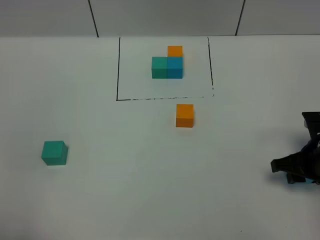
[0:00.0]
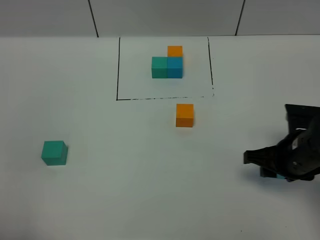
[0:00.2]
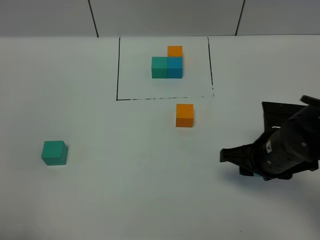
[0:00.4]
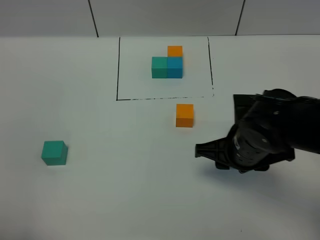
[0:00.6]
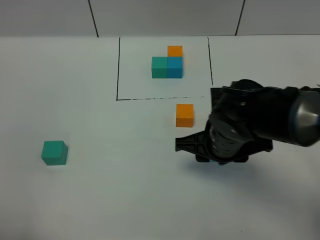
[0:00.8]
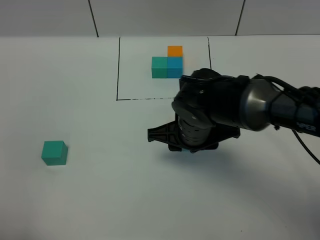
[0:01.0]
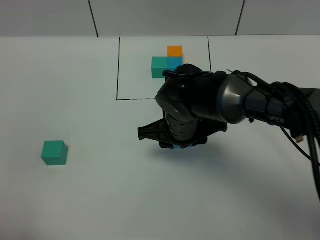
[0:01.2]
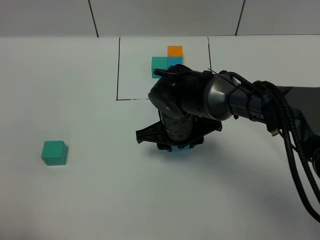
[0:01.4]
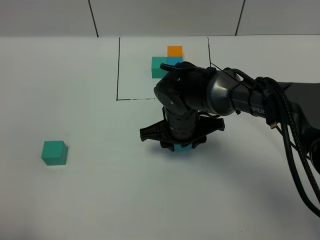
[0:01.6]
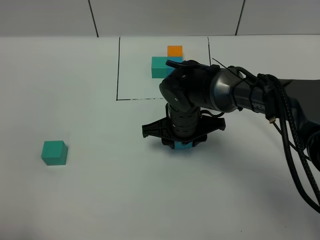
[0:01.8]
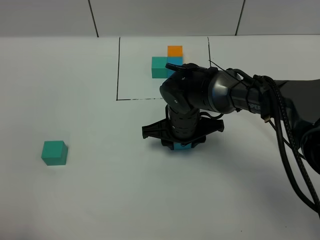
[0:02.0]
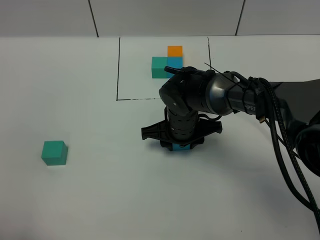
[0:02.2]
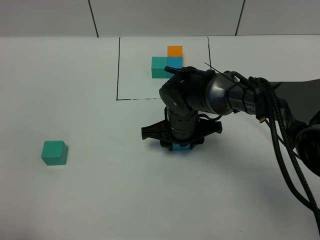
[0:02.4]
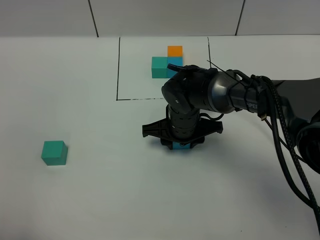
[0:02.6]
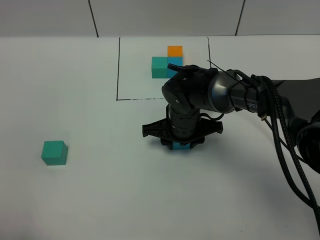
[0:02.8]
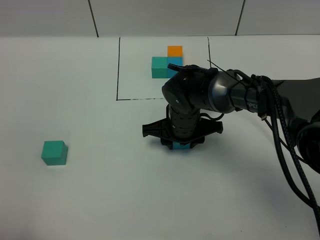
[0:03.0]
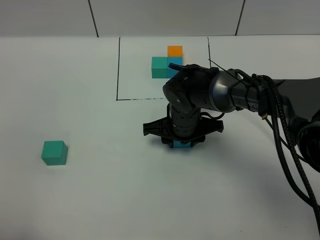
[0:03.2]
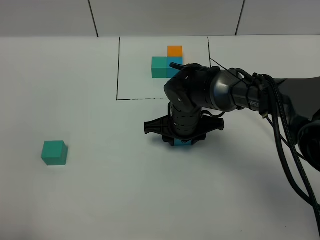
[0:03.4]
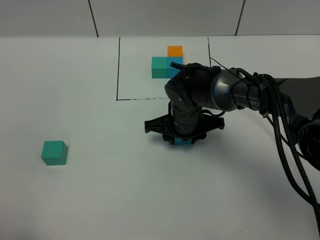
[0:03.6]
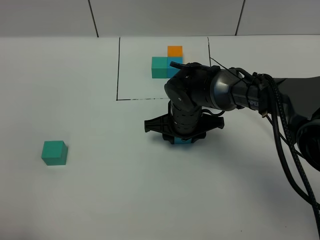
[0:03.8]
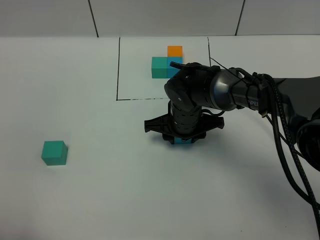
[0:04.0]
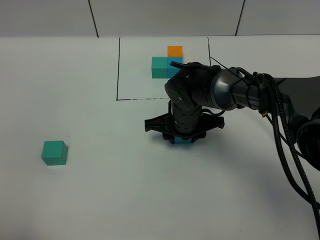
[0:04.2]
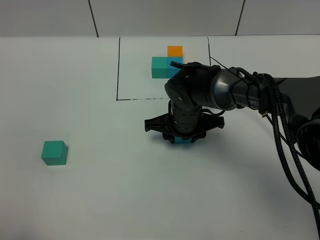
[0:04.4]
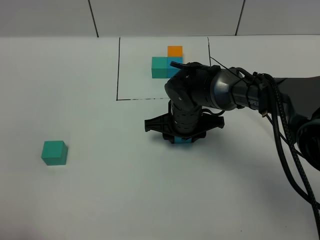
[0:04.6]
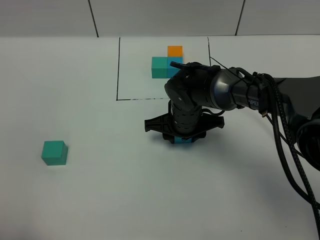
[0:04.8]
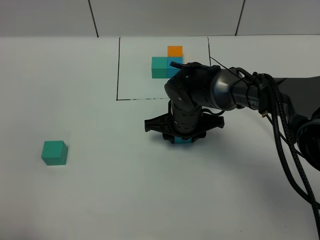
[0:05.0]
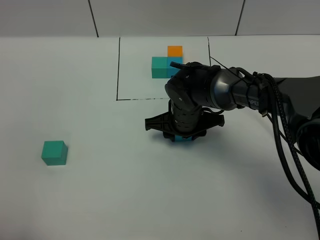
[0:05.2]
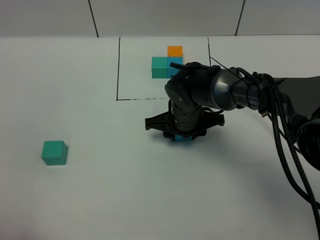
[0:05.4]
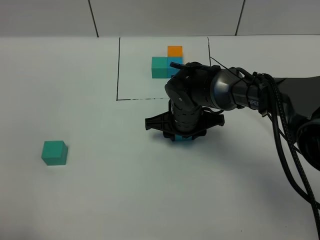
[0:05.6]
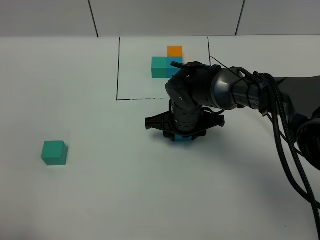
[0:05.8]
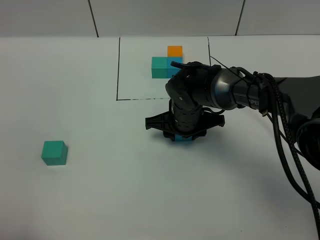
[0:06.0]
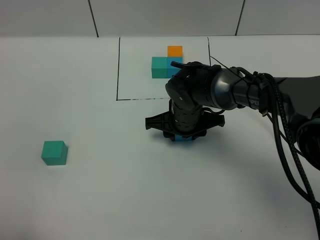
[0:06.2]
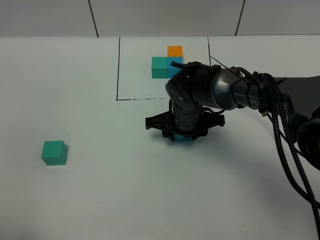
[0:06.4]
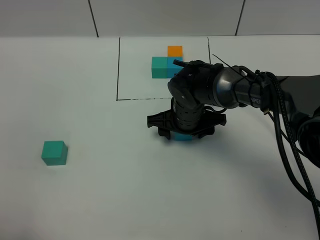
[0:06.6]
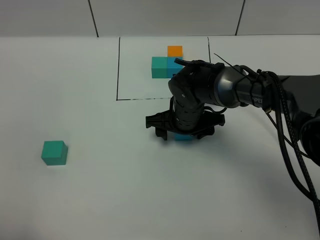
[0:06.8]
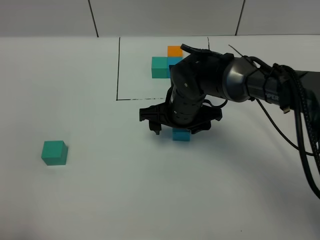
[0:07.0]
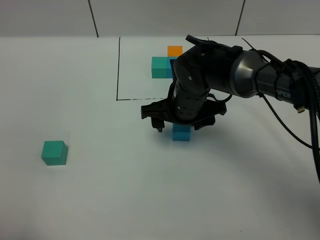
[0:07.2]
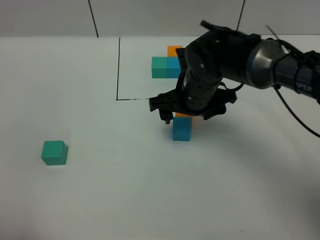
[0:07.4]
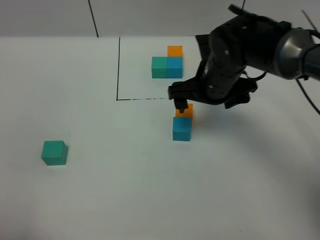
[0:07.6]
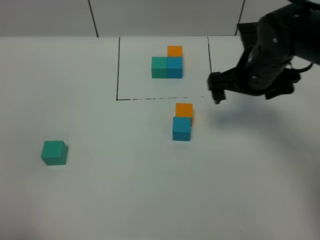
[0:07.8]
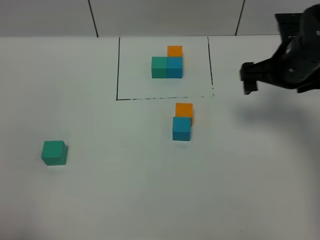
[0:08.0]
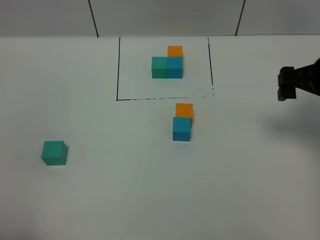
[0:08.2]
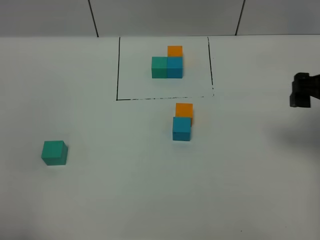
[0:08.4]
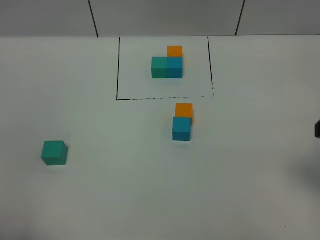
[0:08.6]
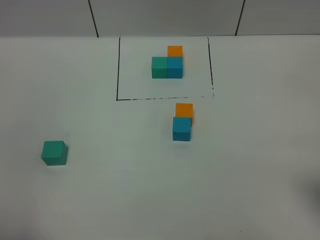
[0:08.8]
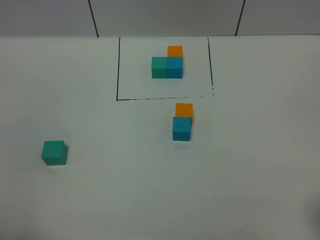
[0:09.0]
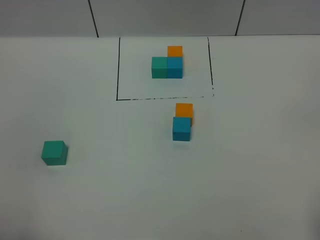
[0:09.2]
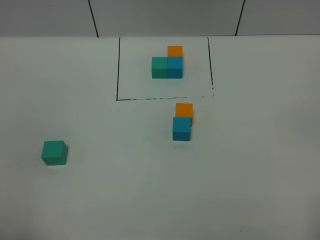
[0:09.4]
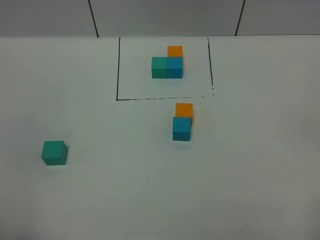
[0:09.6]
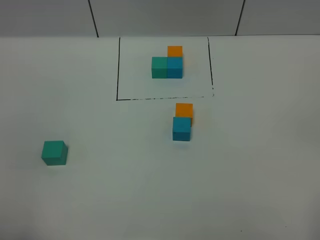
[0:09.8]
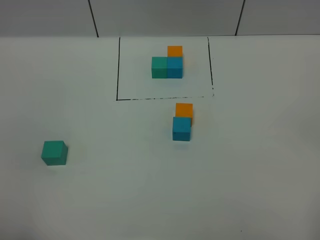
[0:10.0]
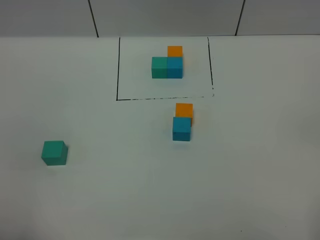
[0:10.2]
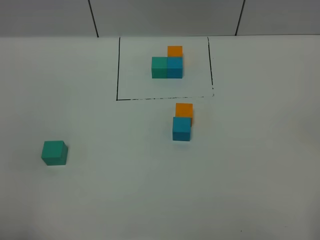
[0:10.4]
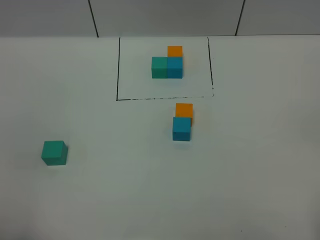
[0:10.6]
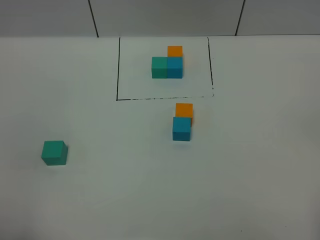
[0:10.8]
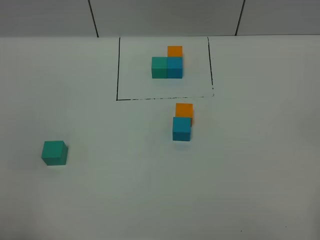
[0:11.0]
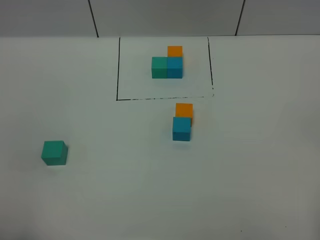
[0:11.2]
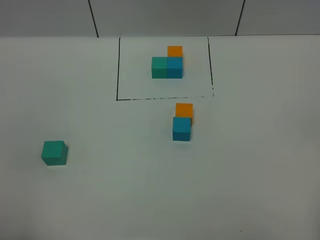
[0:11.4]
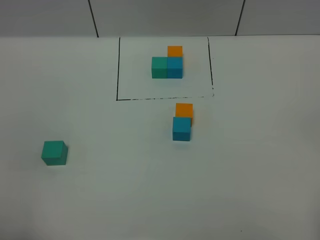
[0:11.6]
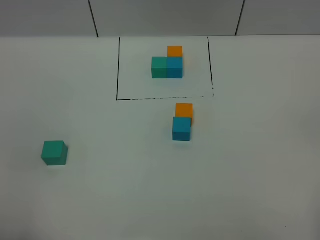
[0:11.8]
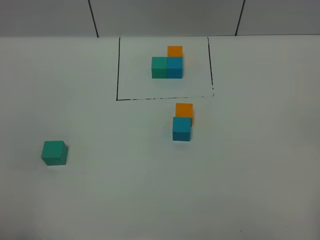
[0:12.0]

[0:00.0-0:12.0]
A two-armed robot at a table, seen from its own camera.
Task of the whole recording: According to the building block template in front, assemble the scattered blocks together.
Step, 0:00.0 to 0:06.8: Put the blue build block on the behind of the orange build block.
0:00.0 to 0:01.6: The right gripper travels to the left by roughly 25 cm.
0:01.6 to 0:03.0: The grippers stay close to where they were, moving slightly.
0:03.0 to 0:06.0: The two grippers keep their place.
0:06.0 to 0:07.6: The right gripper is displaced upward and to the right by approximately 10 cm, and opens its fingers.
0:07.6 to 0:09.0: The right gripper shifts about 35 cm backward and to the right.

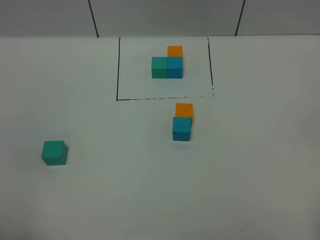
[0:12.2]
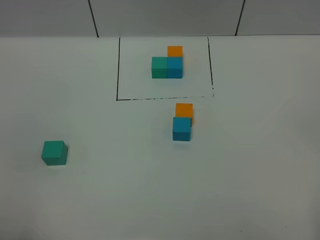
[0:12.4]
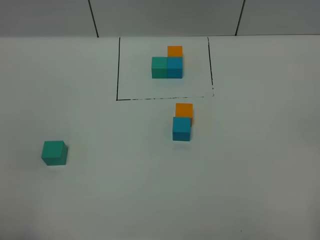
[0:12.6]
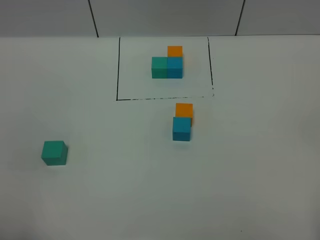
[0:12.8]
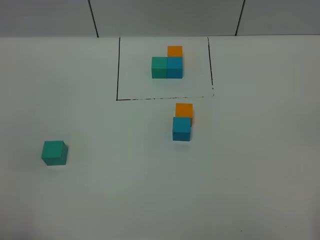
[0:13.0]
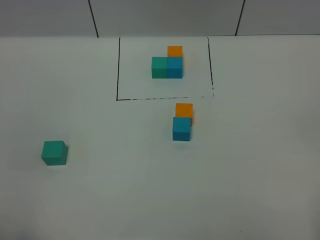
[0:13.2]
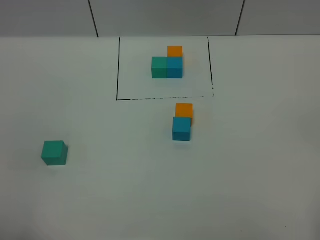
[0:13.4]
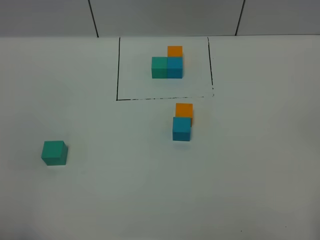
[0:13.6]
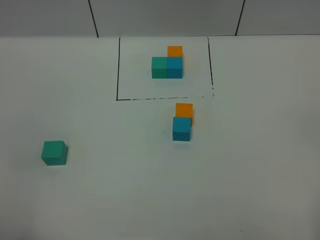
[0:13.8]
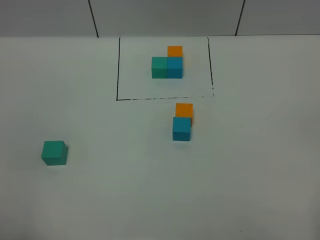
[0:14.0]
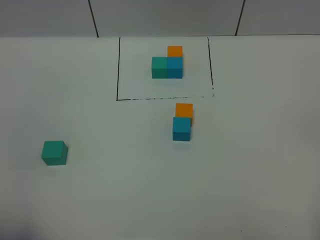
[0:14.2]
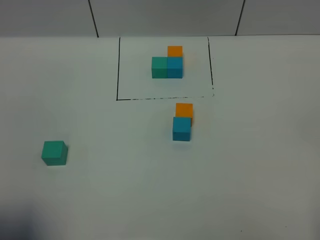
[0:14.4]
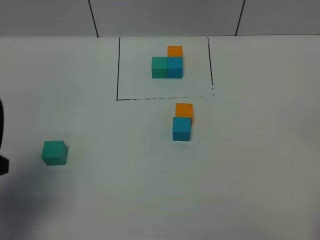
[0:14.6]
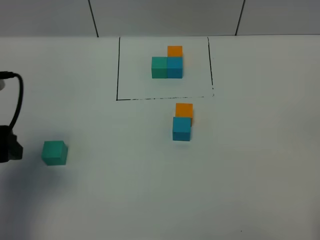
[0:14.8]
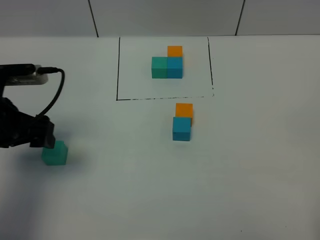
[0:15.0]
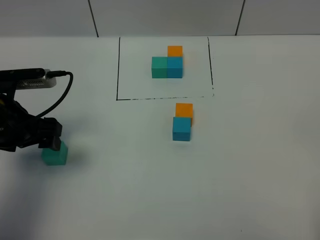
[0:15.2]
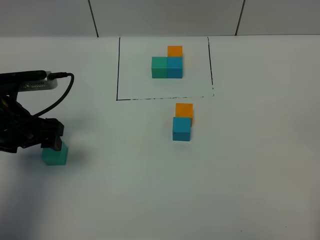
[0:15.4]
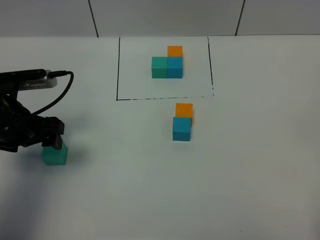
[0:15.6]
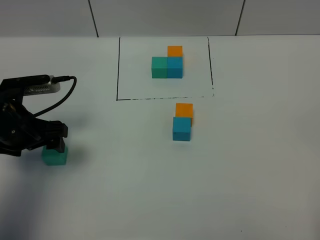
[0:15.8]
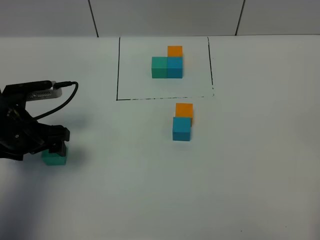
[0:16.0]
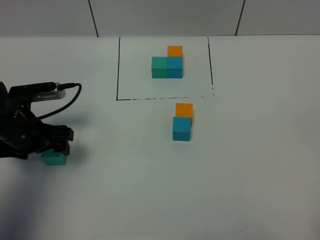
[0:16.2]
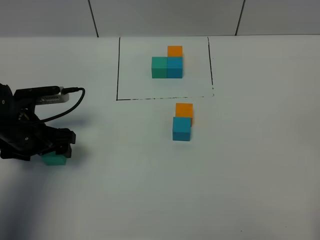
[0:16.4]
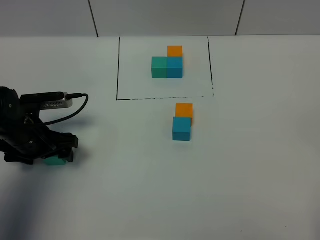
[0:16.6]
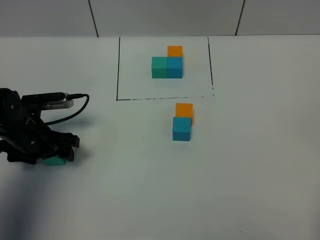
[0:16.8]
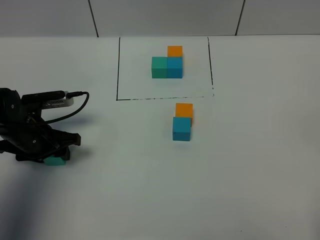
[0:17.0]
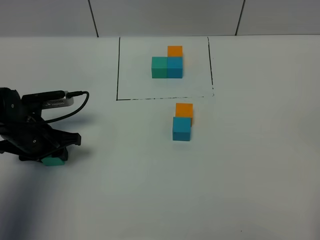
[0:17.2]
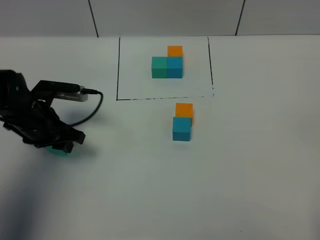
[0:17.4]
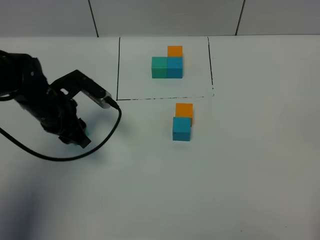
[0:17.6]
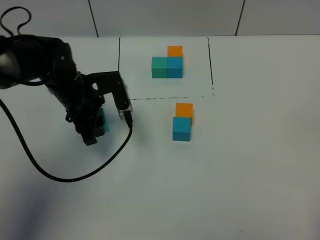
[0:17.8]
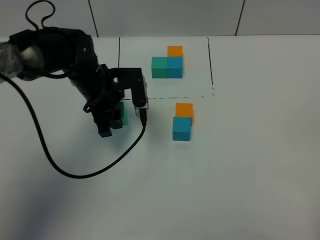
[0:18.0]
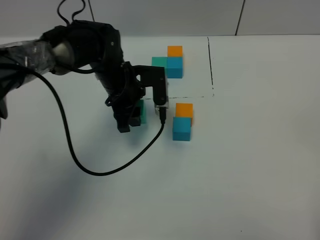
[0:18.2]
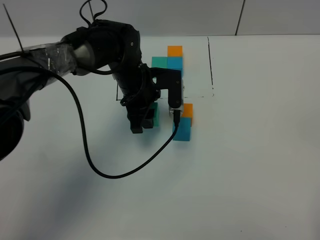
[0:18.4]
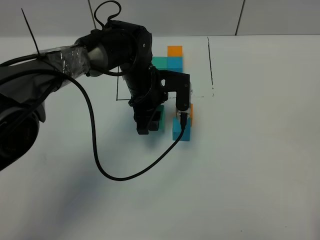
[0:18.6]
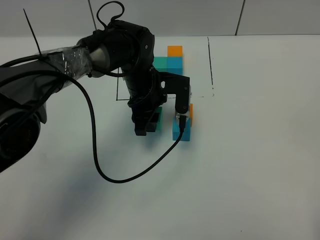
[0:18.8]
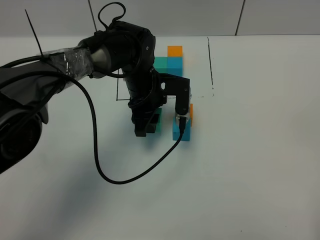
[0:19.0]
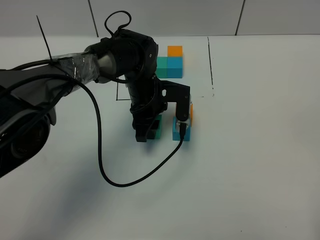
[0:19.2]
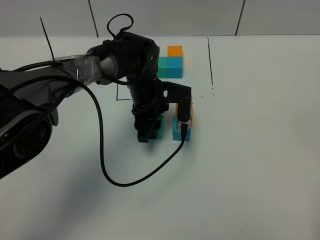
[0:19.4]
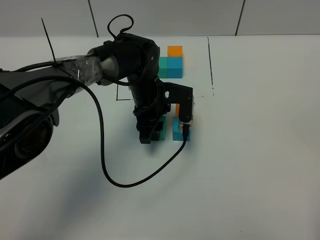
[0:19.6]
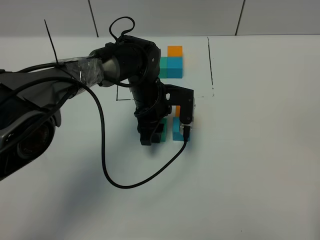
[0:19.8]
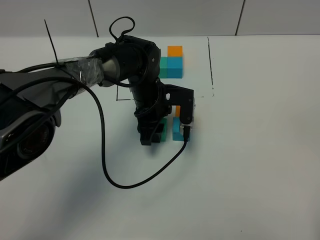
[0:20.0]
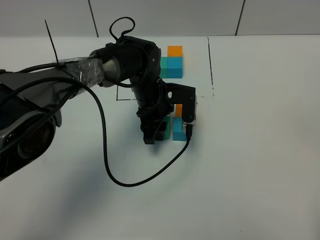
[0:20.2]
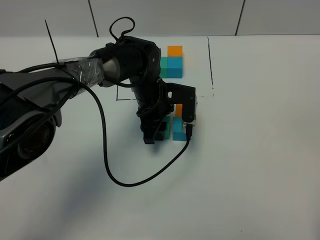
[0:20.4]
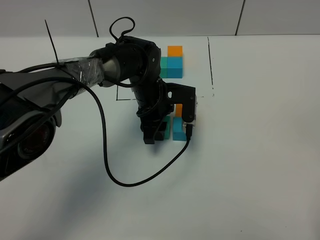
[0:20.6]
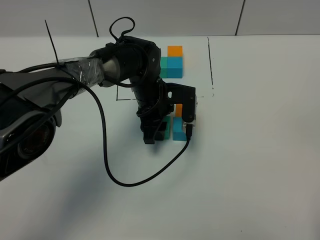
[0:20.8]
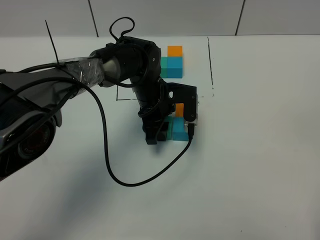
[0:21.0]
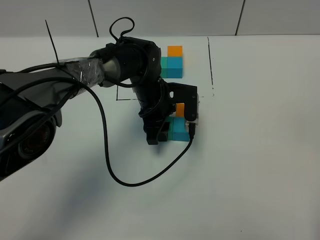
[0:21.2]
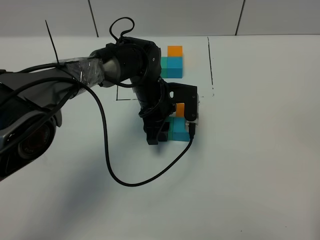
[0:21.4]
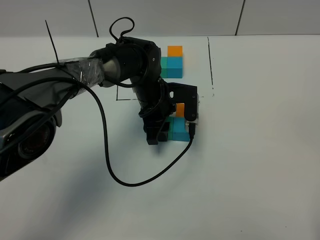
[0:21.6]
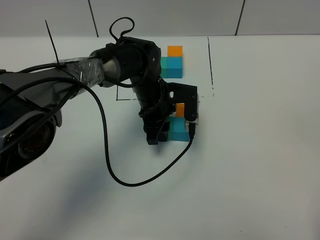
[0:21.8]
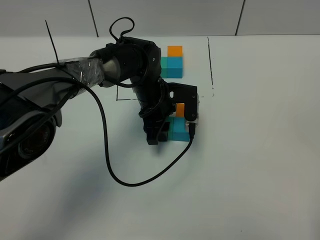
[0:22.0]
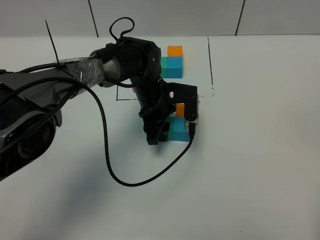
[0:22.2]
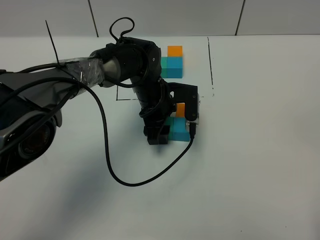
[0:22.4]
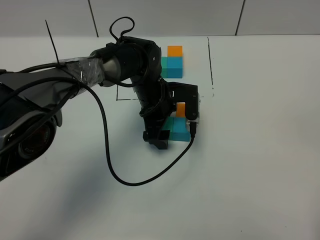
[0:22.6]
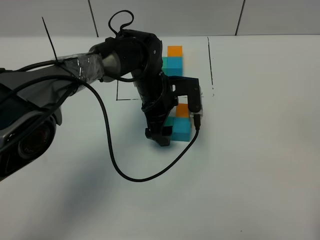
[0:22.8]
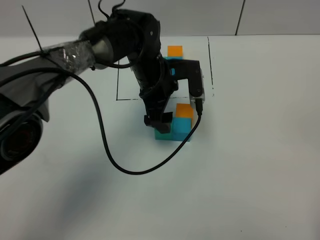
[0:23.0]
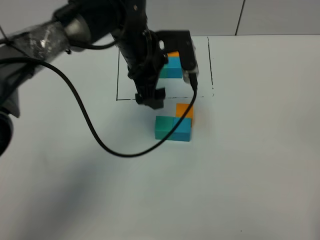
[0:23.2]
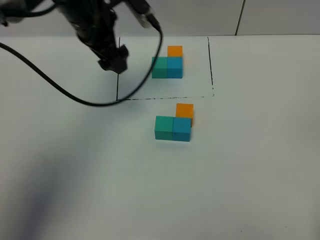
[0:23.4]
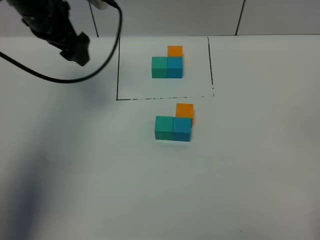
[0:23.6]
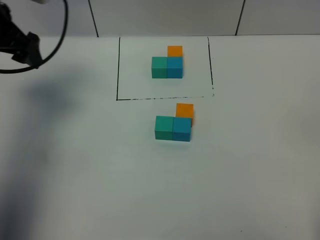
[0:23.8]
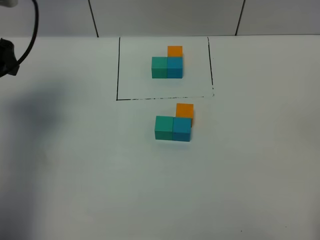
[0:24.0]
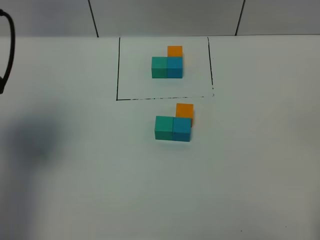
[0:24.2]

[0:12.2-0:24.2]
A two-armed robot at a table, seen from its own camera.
Task of the whole recording: According to the building block template in front, assemble the scattered blocks together.
Step, 0:12.2 to 0:22.6: Put the green build block on the left of the blue build block.
0:12.2 to 0:13.8: The two grippers keep their place.
0:13.8 to 0:15.2: The left gripper heads forward, covering roughly 25 cm.
0:15.2 to 0:16.6: The left gripper shifts approximately 10 cm downward.
0:16.6 to 0:18.2: The left gripper moves to the right and forward, approximately 20 cm, and closes.
0:18.2 to 0:19.8: The left gripper is displaced to the right by some 5 cm.
0:19.8 to 0:21.2: Neither gripper changes place.
0:21.2 to 0:22.6: The left gripper opens up.
0:22.6 to 0:24.2: The left gripper goes approximately 40 cm to the left, upward and backward.
